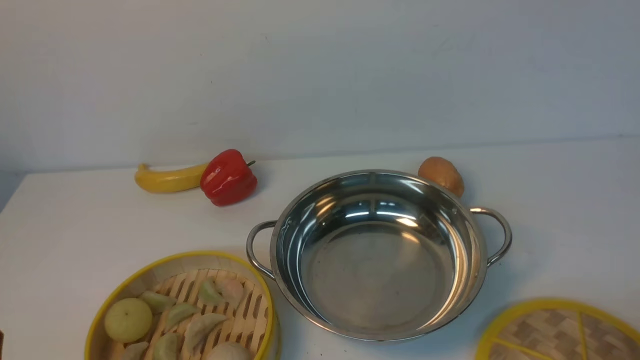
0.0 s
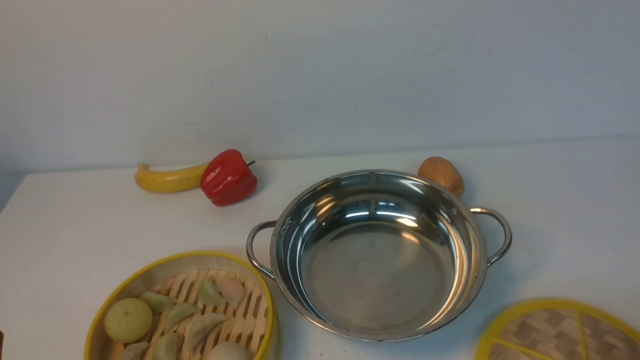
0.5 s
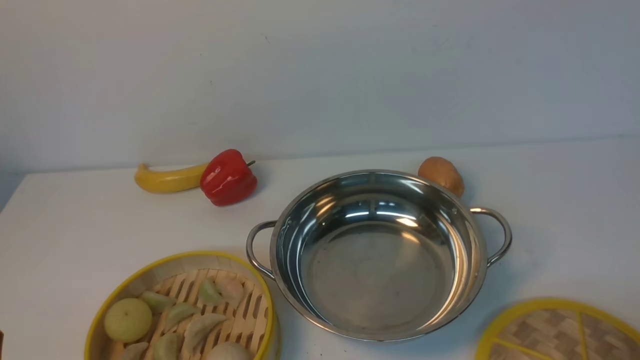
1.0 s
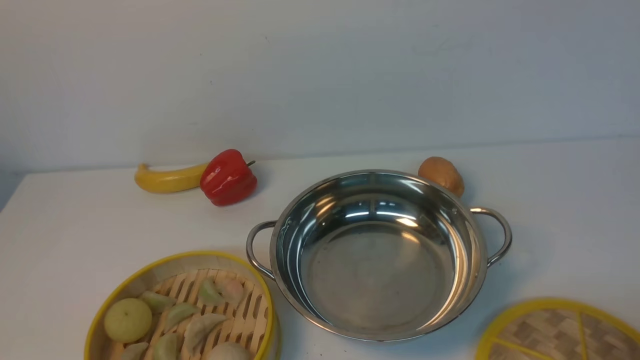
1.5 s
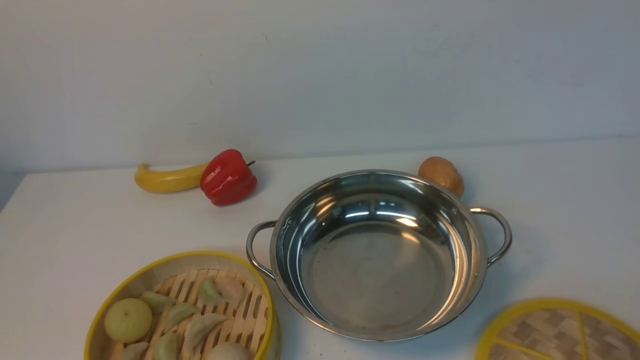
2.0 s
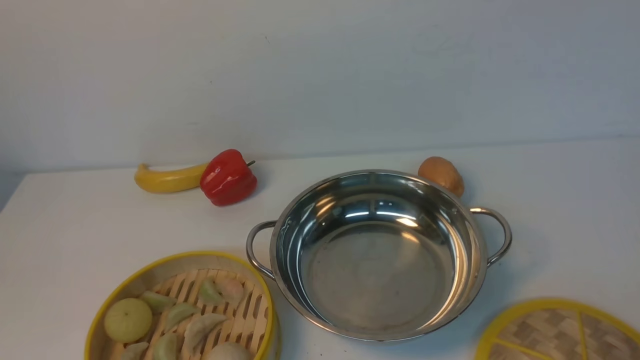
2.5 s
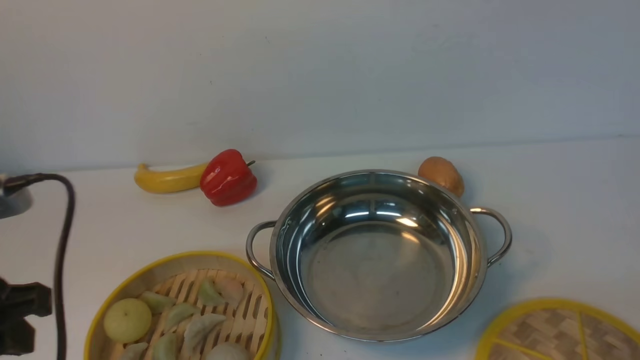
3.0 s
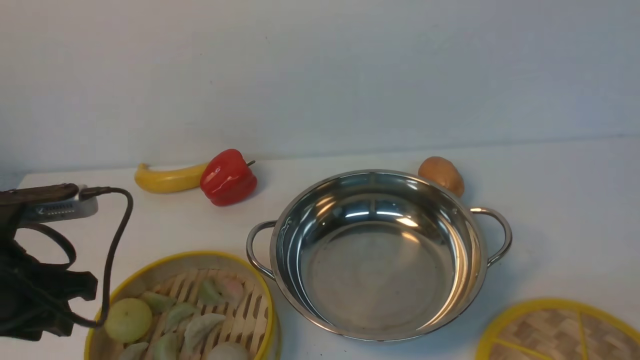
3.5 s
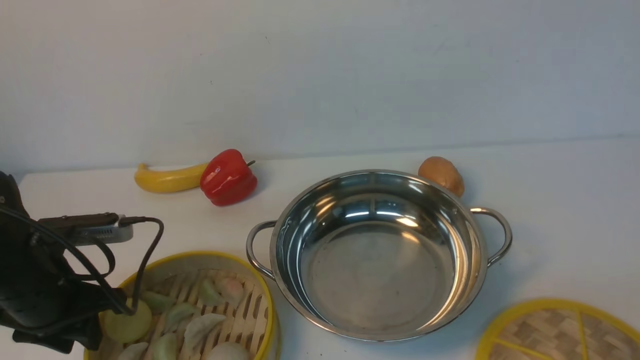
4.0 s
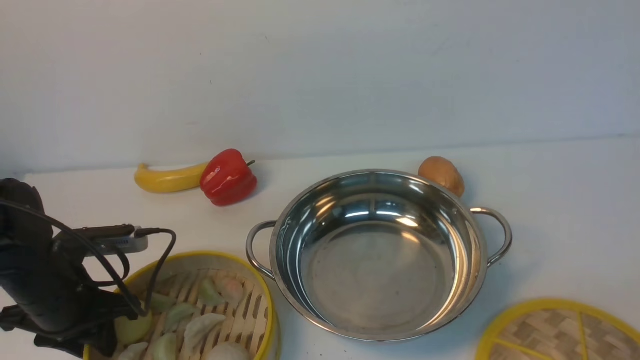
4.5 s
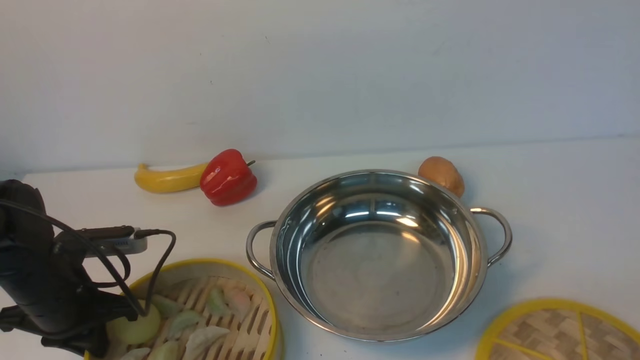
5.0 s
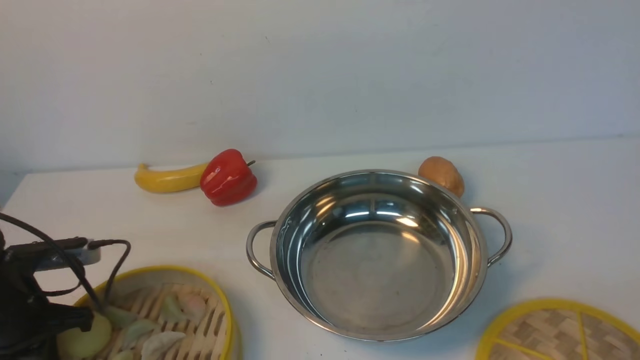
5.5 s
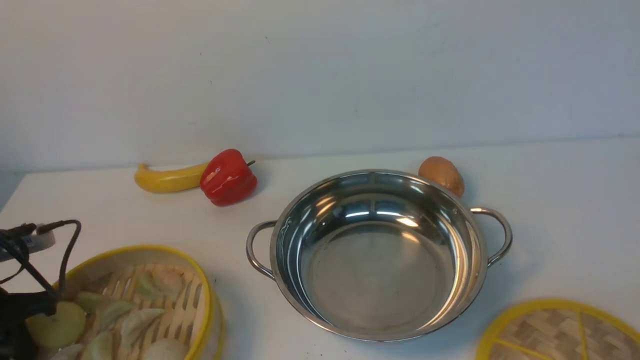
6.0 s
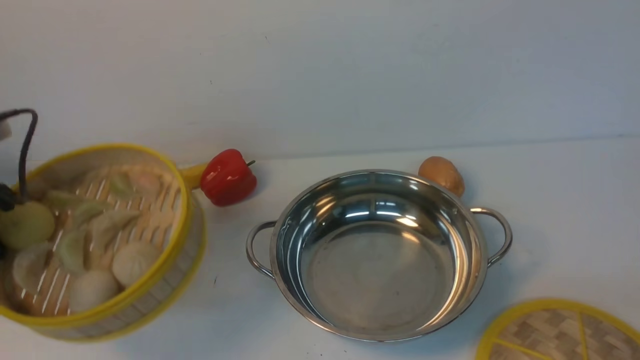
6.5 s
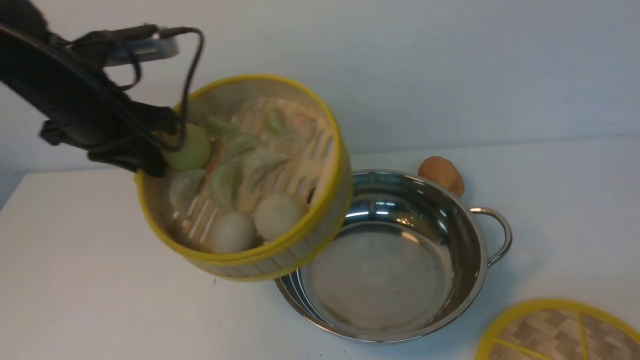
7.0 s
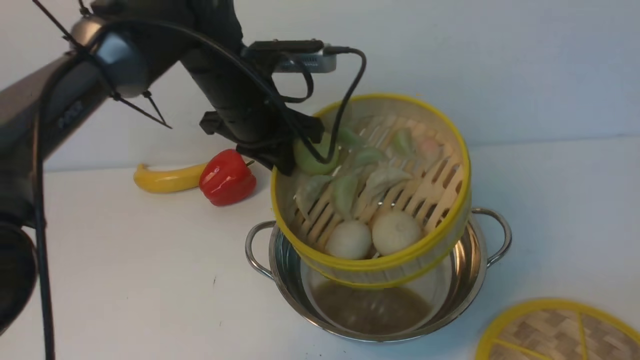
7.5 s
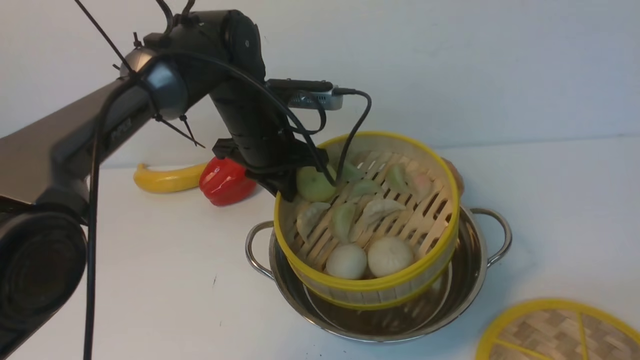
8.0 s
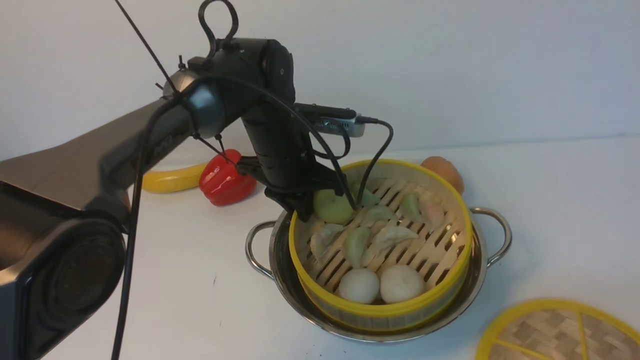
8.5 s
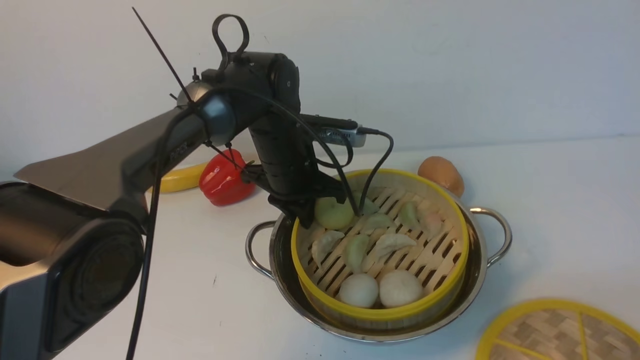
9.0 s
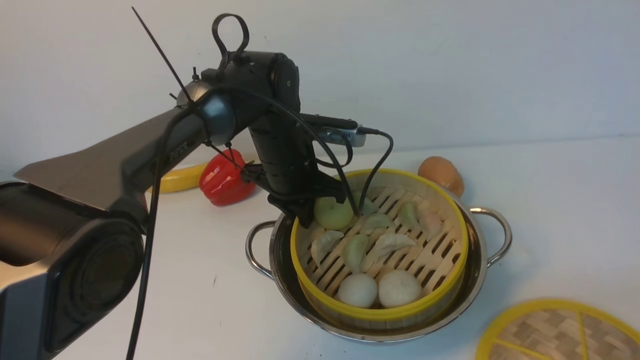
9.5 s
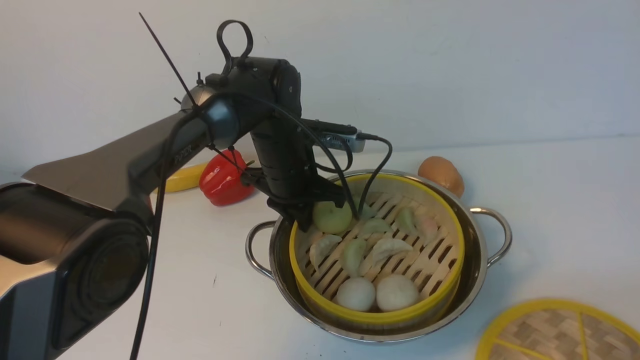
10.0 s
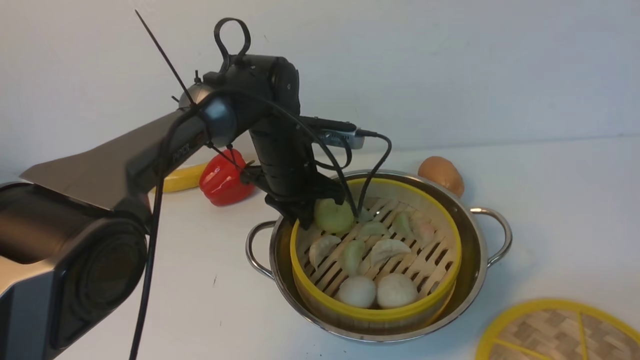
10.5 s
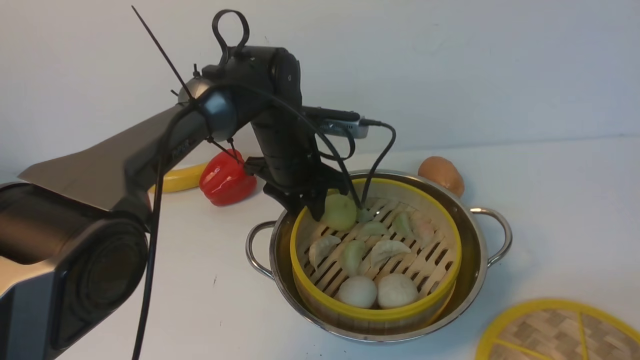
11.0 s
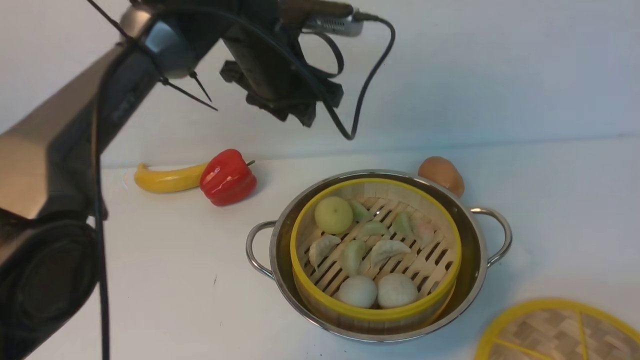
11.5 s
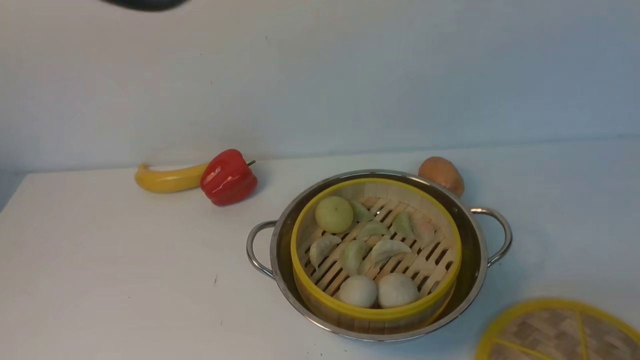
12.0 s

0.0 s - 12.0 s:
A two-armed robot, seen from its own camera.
Task of the whole recording: place the steamer in the pot on the white table, and put the lid on the steamer.
Step, 0.0 s - 6.5 s: use the left arm to lift the steamer closest to it.
Step, 7.0 s - 11.5 s: use the left arm to put the steamer into the iron steamer pot in the middle.
2.0 s - 4.0 s: The left gripper heads forward, covering some 20 cm.
4.0 s - 6.0 s: The left gripper moves to the left, approximately 10 cm, and closes its fingers.
6.0 s - 8.0 s: The left gripper moves to the right and forward, approximately 35 cm.
8.0 s - 10.0 s: The left gripper travels downward by some 5 cm.
10.0 s - 12.0 s: The left gripper shifts some 30 cm upward, and opens and closes again.

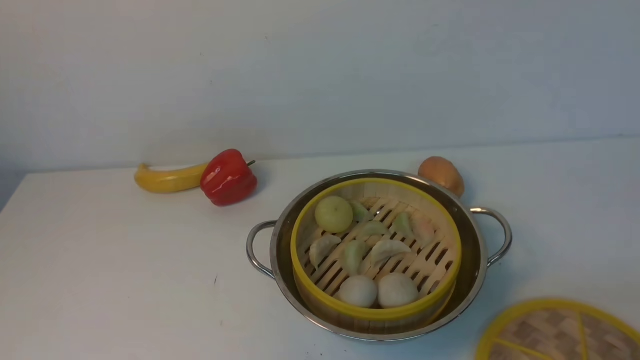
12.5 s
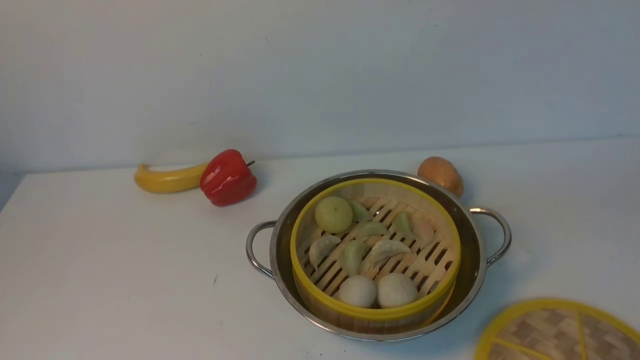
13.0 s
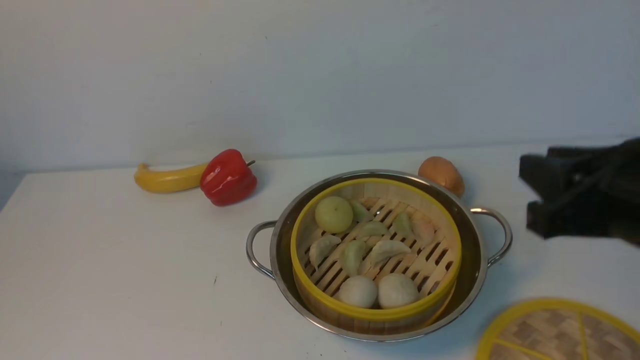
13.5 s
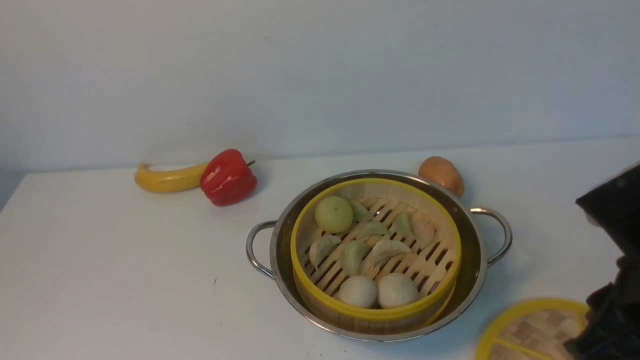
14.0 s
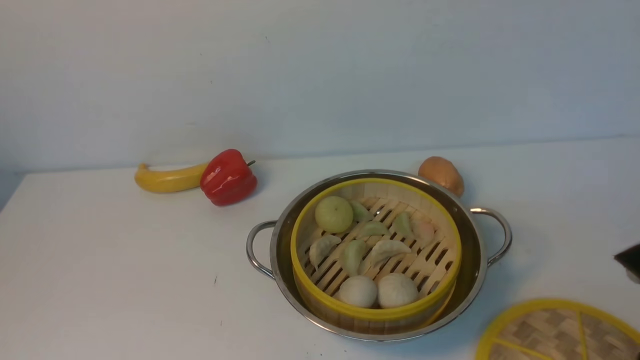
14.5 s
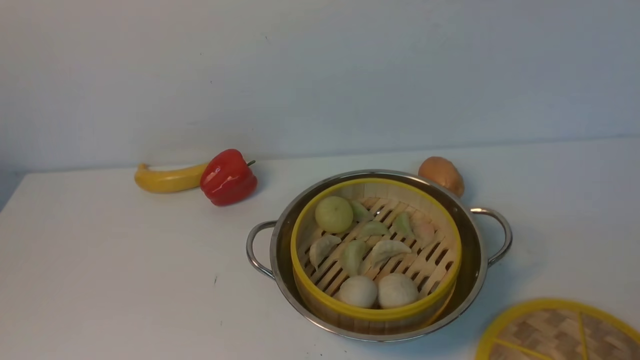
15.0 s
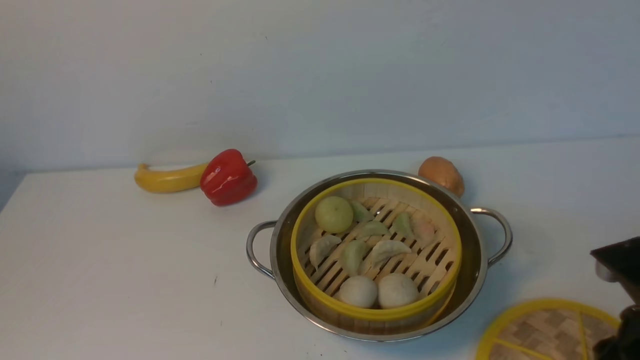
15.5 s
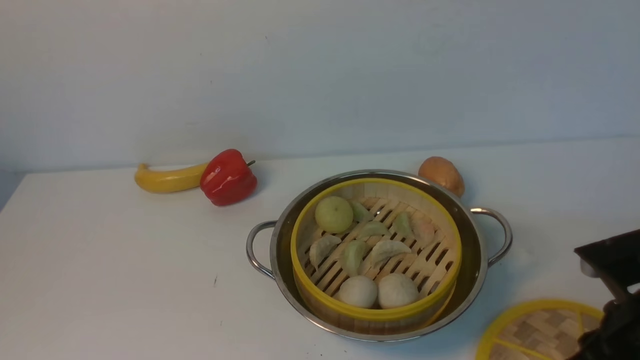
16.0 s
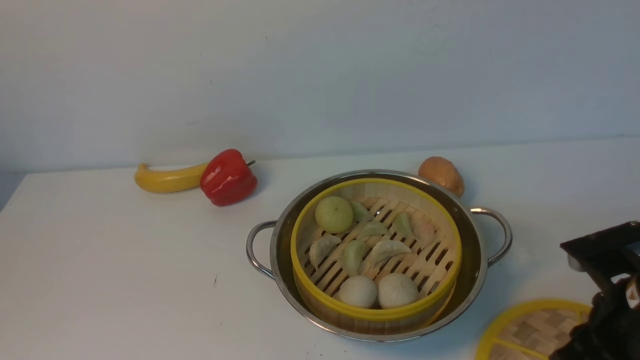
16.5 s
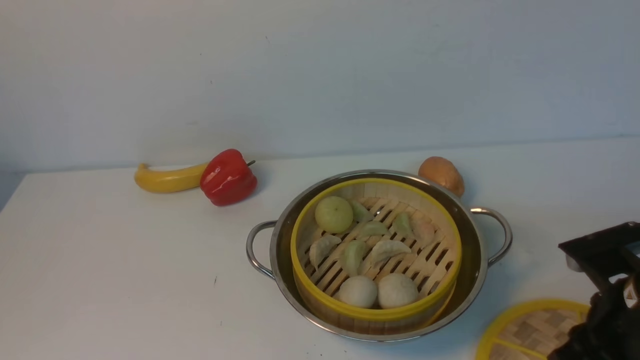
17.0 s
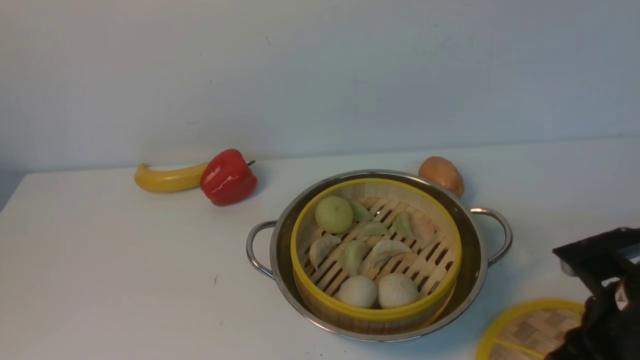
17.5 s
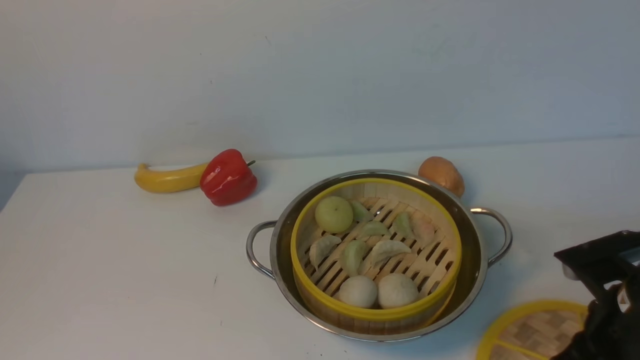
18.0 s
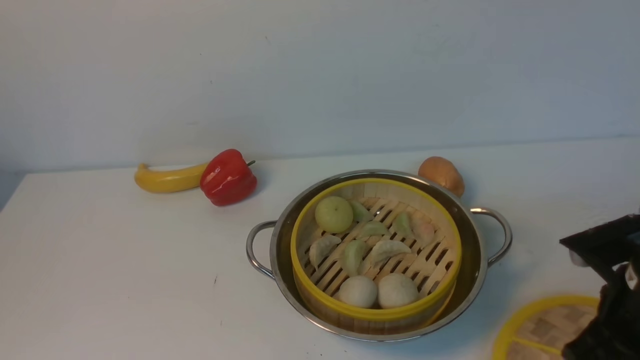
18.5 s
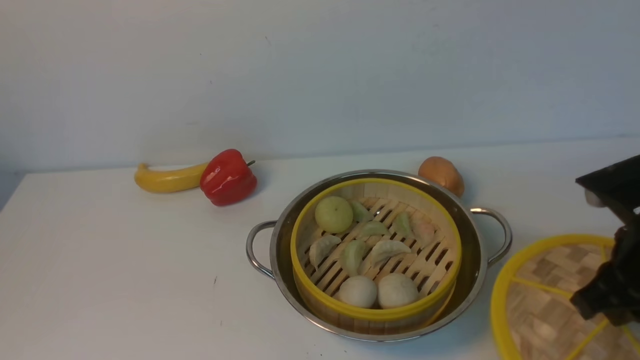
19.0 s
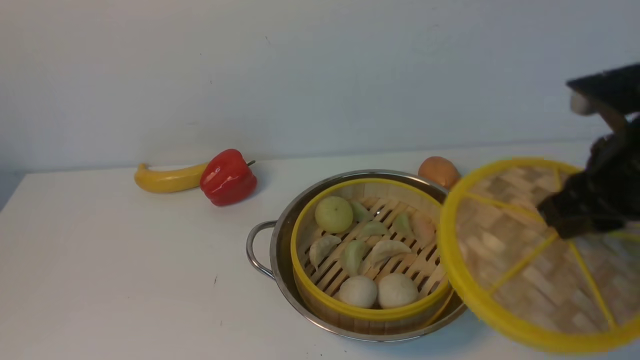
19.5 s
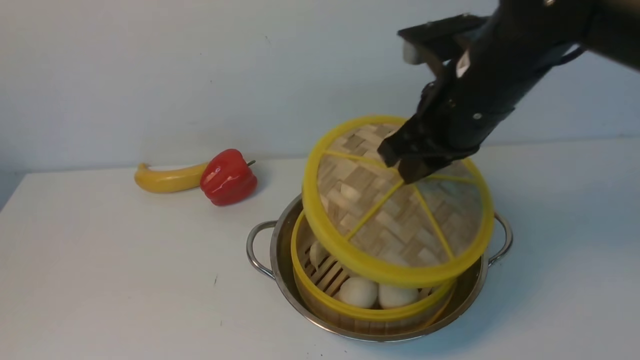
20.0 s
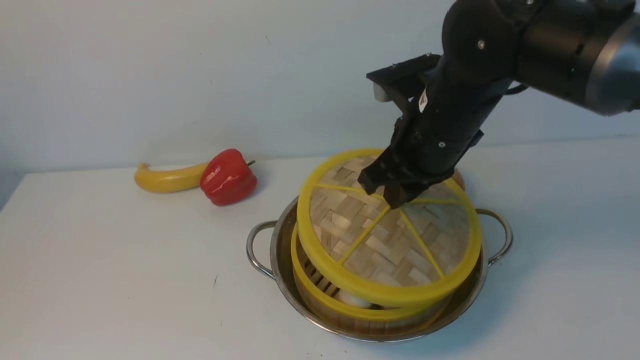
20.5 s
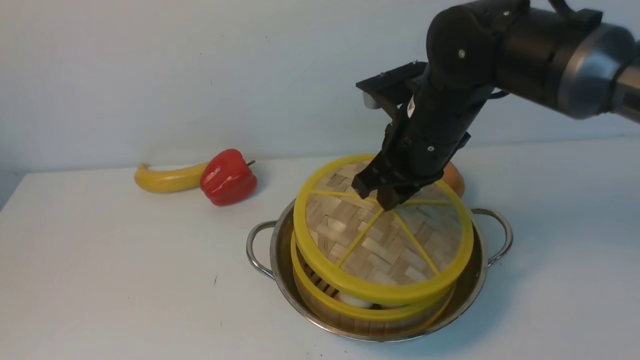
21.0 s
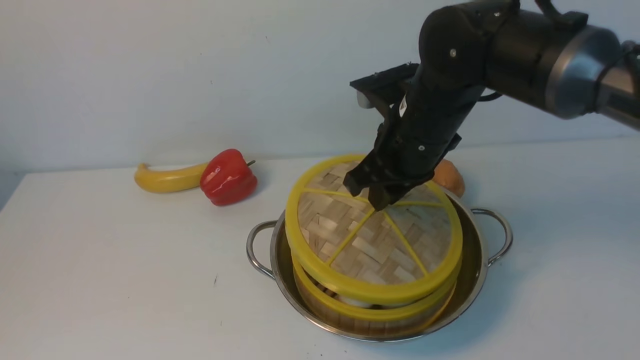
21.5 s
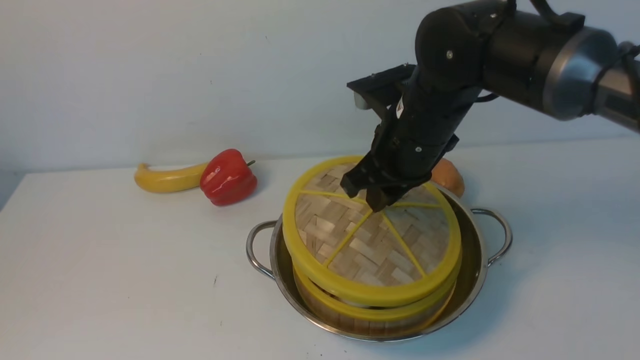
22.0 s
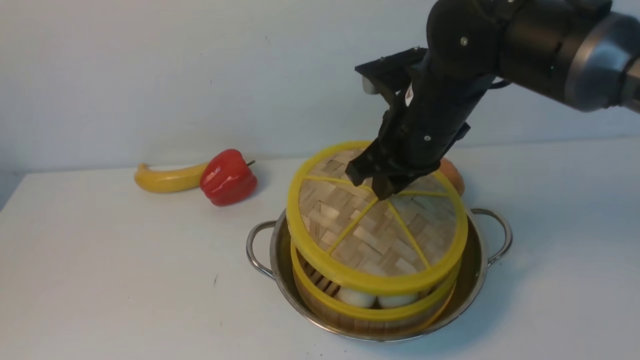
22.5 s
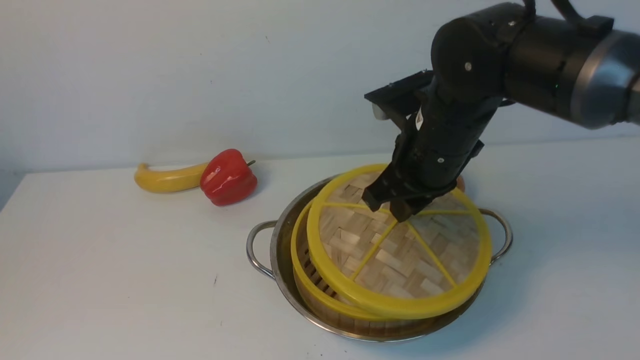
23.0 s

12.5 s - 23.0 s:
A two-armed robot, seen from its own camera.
Task of the whole recording: place the steamer in the pot on the white table, and put the lid on the steamer.
Step, 12.5 s - 18.5 s: use the right arm to lift the lid of the steamer.
14.5 s - 16.5 s: The right gripper travels downward and forward by about 10 cm.
16.5 s - 19.0 s: The right gripper heads upward, covering approximately 5 cm.
19.0 s - 21.0 s: The right gripper moves to the left and forward, approximately 20 cm.
21.0 s - 23.0 s: Both grippers stay put.
